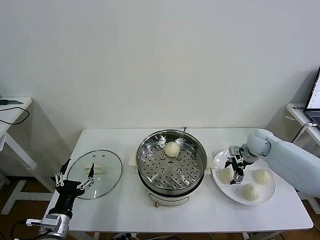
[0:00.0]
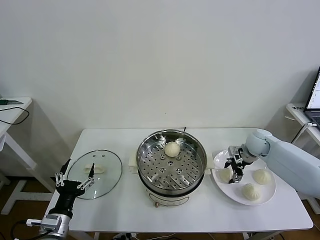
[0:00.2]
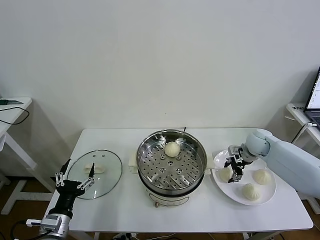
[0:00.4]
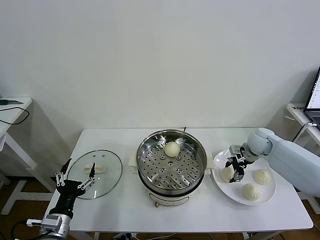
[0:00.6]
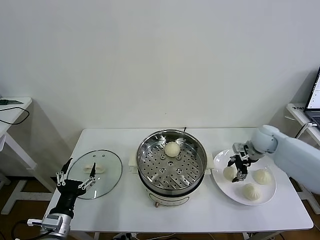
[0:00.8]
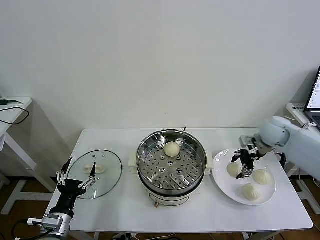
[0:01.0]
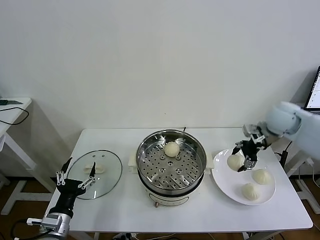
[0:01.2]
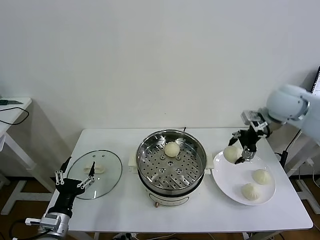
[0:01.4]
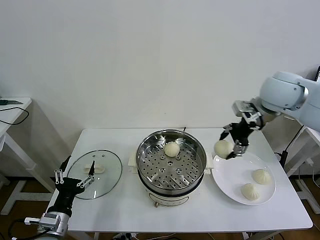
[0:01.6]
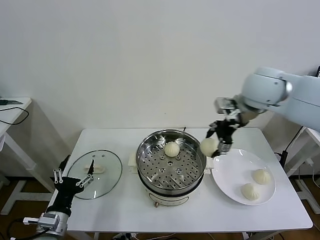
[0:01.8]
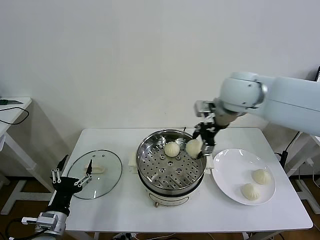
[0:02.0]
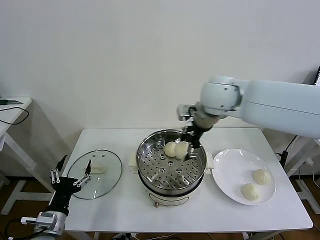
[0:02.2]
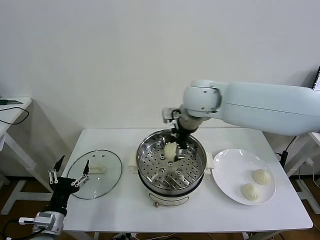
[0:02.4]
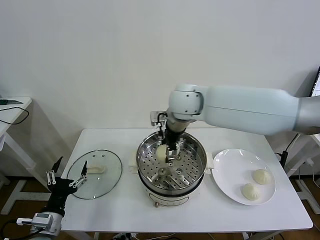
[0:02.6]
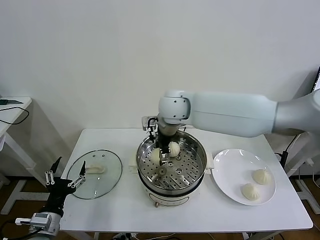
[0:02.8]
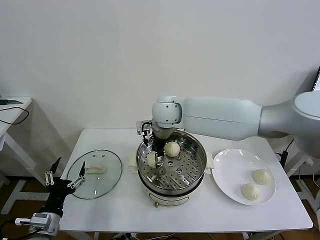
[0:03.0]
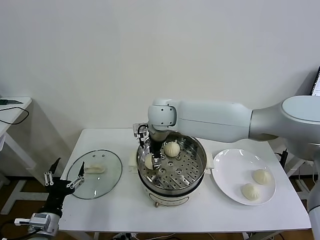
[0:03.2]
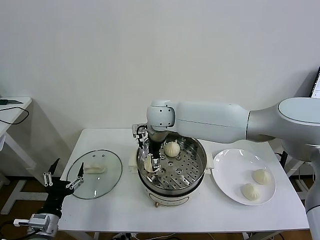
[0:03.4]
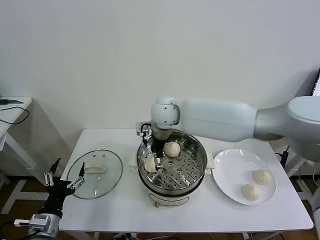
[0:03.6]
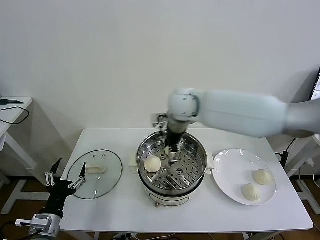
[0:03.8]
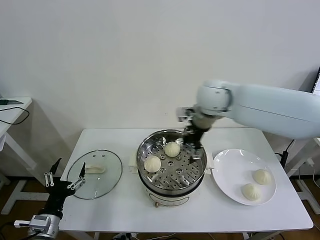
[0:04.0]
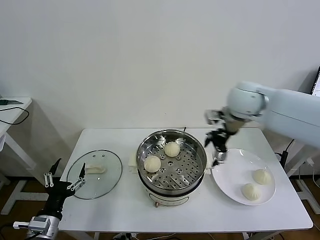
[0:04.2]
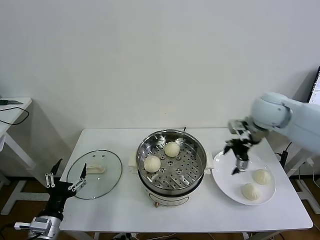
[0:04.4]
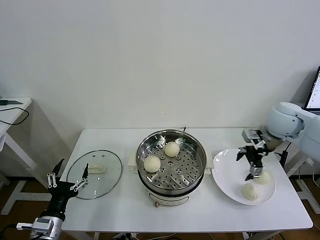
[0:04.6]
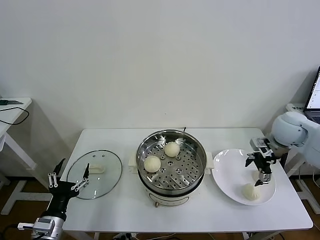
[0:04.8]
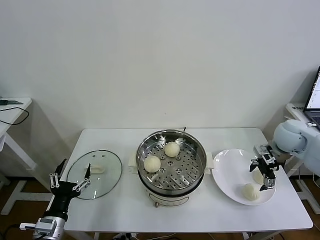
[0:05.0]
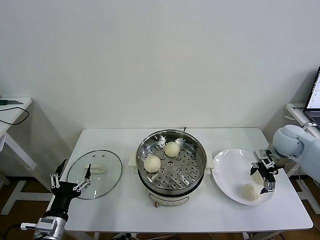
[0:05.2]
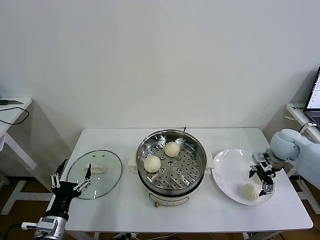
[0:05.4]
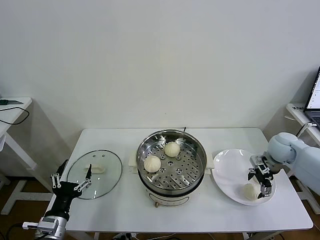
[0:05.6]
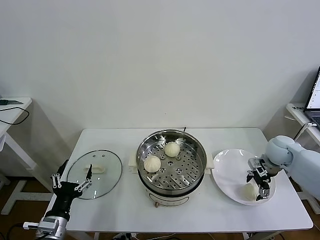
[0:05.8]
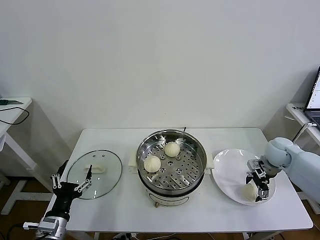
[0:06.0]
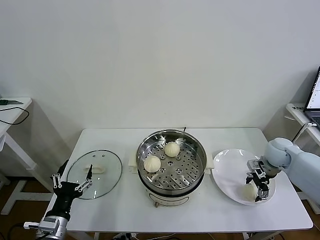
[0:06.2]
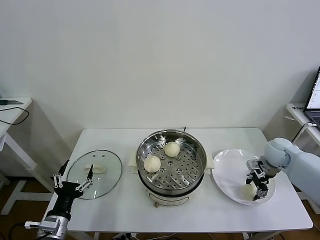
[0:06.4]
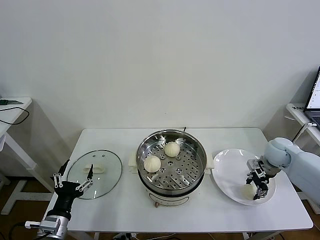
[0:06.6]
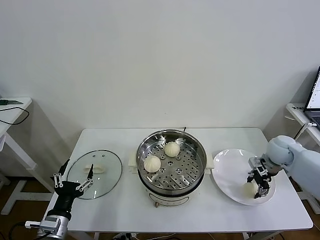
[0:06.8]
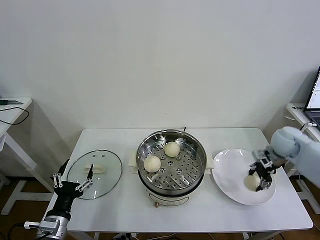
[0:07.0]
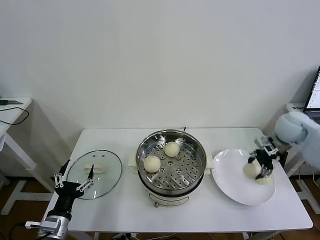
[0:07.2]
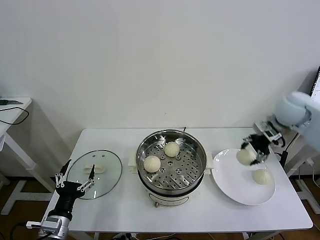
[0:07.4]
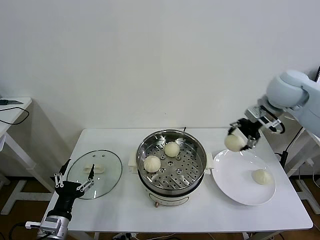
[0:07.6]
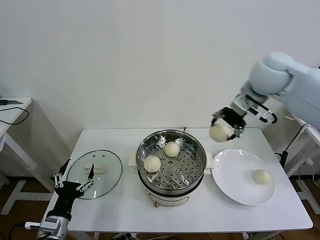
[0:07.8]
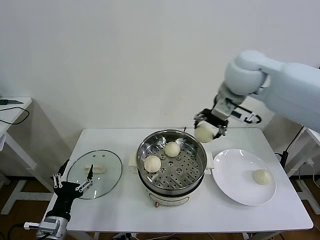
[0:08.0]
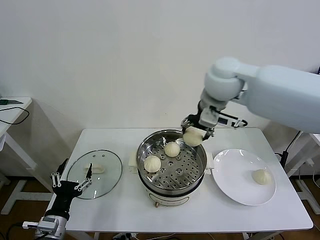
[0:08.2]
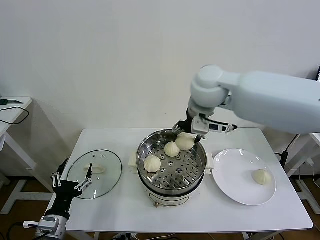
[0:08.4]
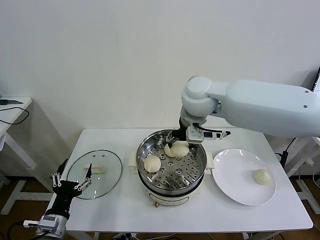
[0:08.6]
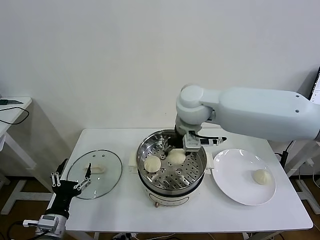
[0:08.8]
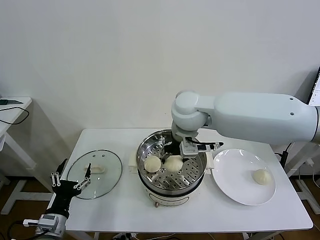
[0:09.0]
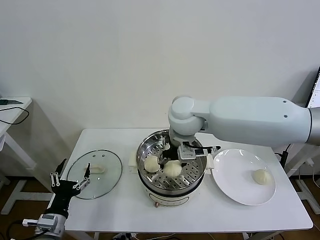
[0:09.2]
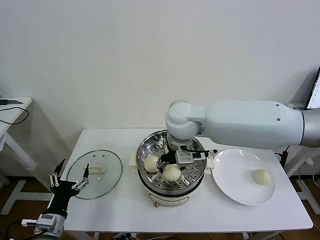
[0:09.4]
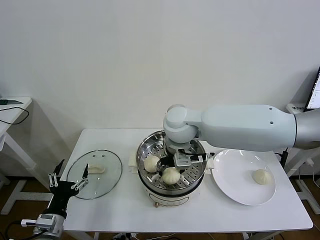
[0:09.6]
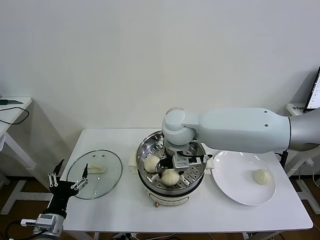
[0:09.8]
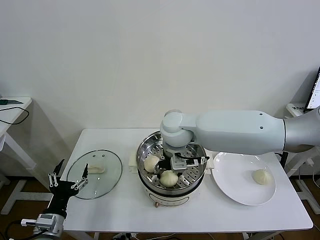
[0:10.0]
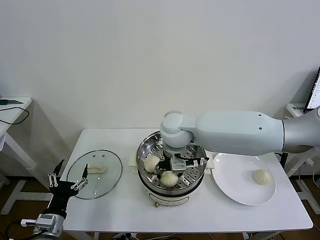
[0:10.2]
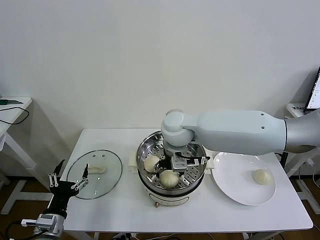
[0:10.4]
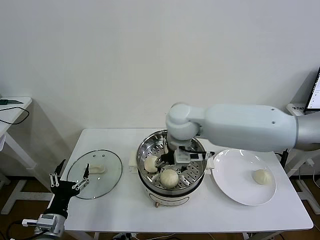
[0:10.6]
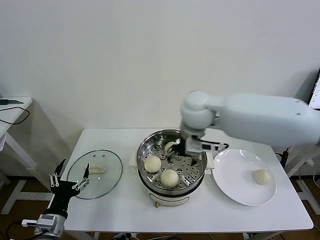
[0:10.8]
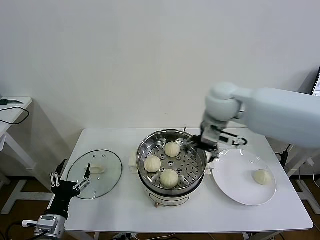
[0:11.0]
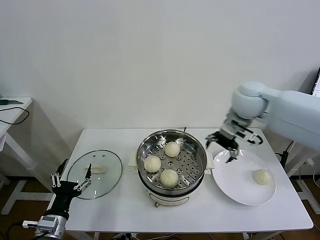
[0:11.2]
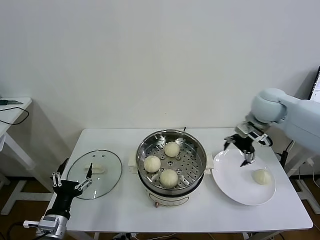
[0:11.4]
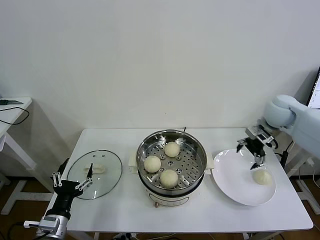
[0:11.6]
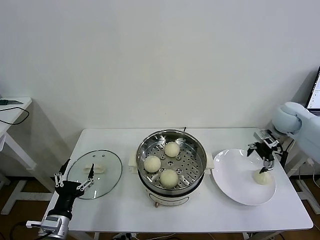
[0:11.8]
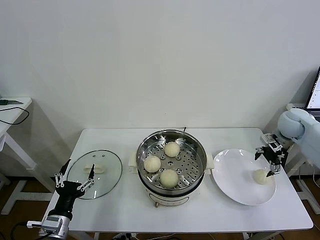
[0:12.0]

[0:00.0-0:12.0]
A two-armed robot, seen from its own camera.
Task of the whole recording: take steamed baozi put them in steamer then cover it.
Step, 0.4 to 3.4 s: Place the baozi on the steamer with right gripper.
Step, 3.6 to 6.4 s: Grasp the baozi in the plate with right gripper.
Step, 6.6 to 10.2 s: Place the baozi on the steamer with right gripper.
0.0 to 1.6 s: The right gripper shifts some 25 cm upward, and closes its fingers.
1.6 to 3.0 s: The right gripper heads to the left and downward, covering roughly 30 cm.
3.0 to 4.4 s: The right gripper travels to the right by some 30 cm, and opens up.
4.4 to 6.0 s: The right gripper is displaced downward and to the right by approximately 20 cm.
6.0 to 7.6 s: The right gripper goes some 30 cm upward and to the left, and closes.
7.6 to 9.0 s: The right gripper goes approximately 25 cm to the left.
9.0 to 10.4 s: The right gripper is displaced downward by roughly 5 cm, and opens its fingers.
10.4 to 12.0 s: The right gripper is displaced to the right by approximately 40 cm.

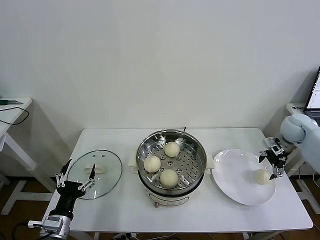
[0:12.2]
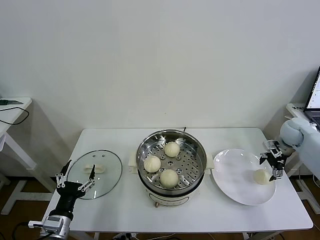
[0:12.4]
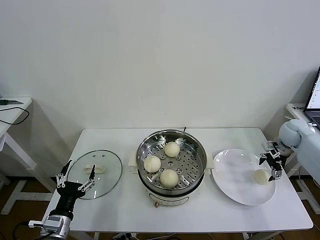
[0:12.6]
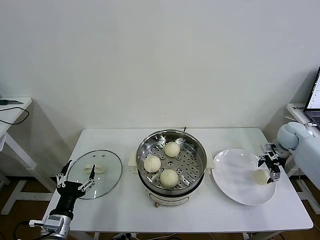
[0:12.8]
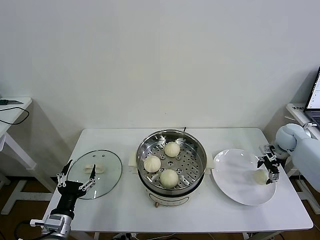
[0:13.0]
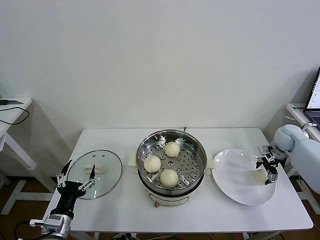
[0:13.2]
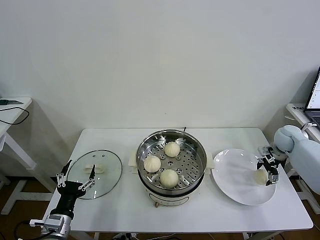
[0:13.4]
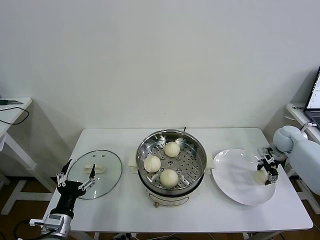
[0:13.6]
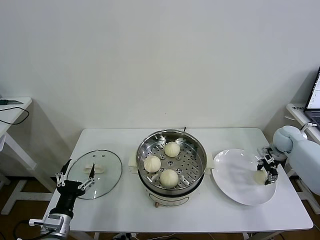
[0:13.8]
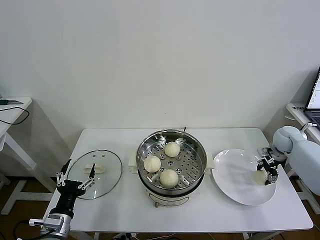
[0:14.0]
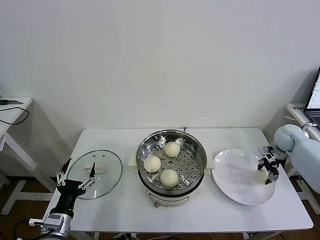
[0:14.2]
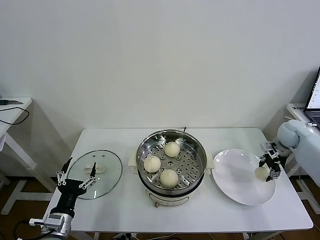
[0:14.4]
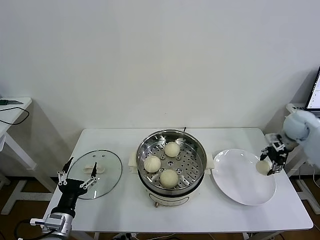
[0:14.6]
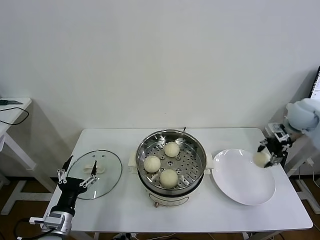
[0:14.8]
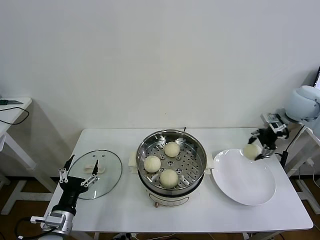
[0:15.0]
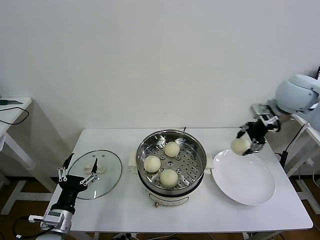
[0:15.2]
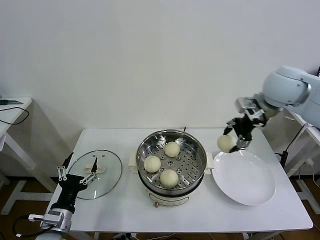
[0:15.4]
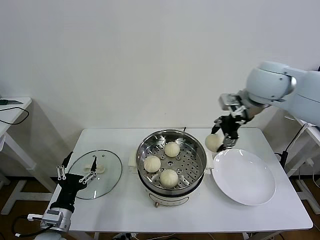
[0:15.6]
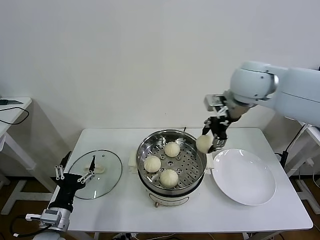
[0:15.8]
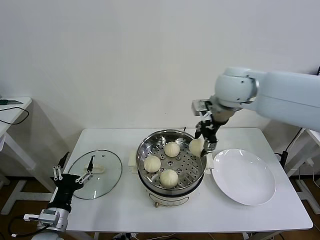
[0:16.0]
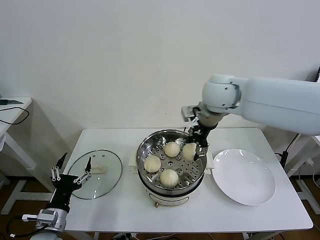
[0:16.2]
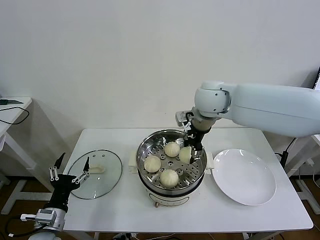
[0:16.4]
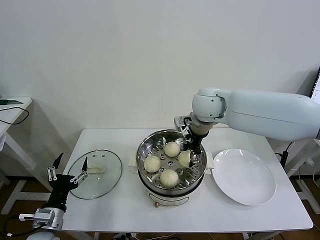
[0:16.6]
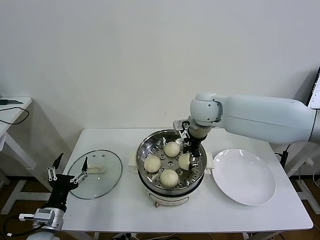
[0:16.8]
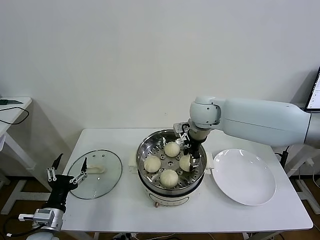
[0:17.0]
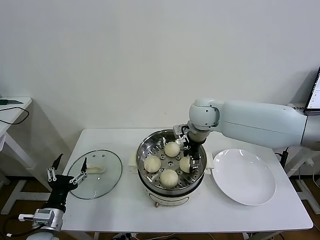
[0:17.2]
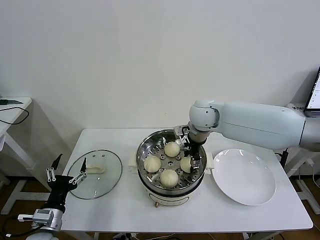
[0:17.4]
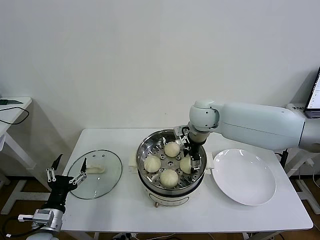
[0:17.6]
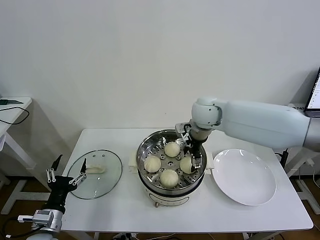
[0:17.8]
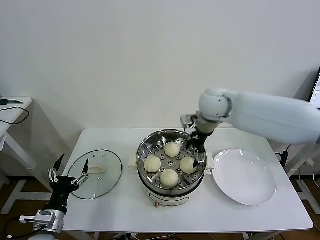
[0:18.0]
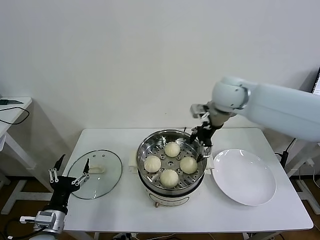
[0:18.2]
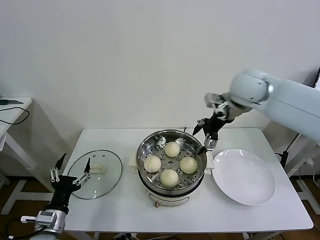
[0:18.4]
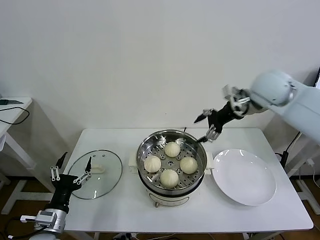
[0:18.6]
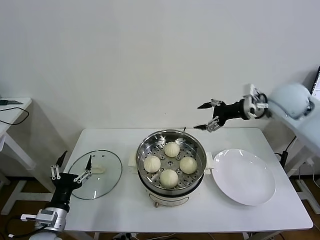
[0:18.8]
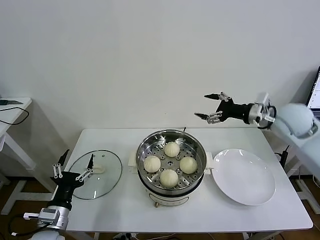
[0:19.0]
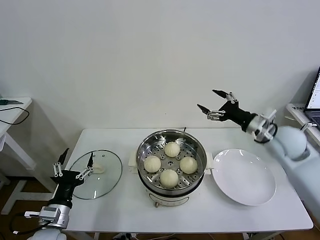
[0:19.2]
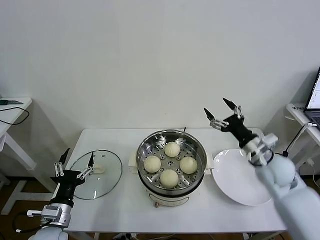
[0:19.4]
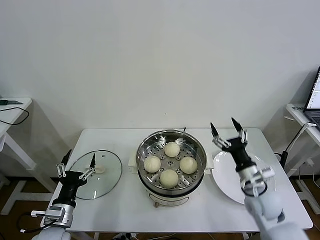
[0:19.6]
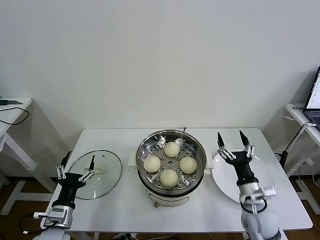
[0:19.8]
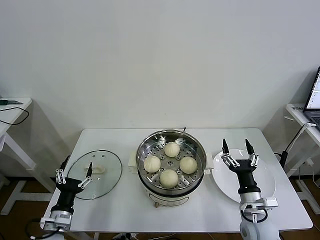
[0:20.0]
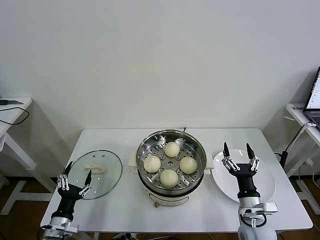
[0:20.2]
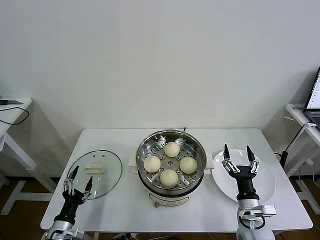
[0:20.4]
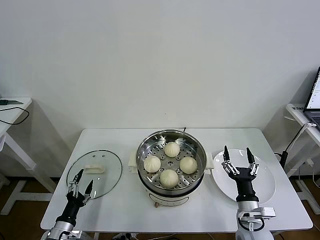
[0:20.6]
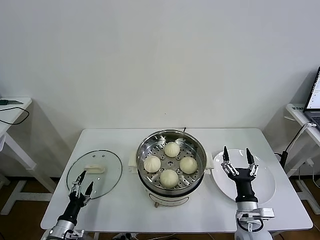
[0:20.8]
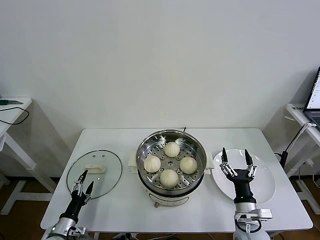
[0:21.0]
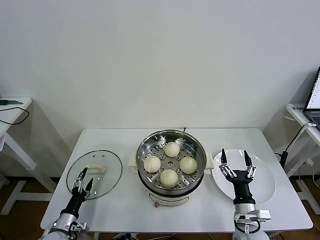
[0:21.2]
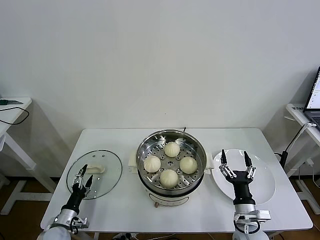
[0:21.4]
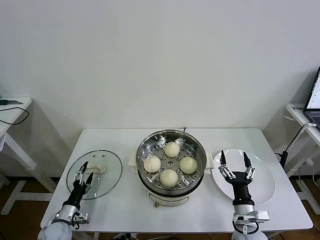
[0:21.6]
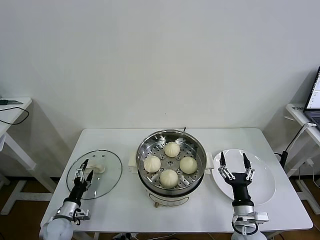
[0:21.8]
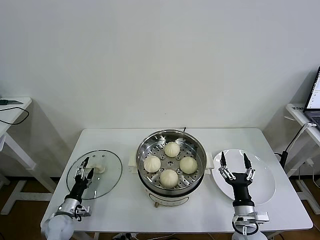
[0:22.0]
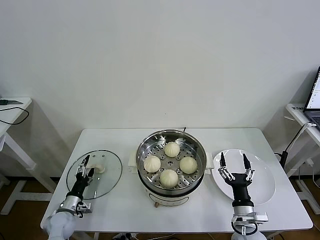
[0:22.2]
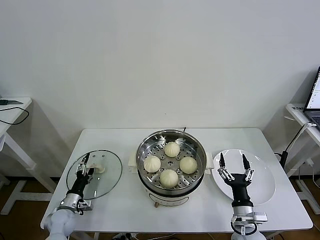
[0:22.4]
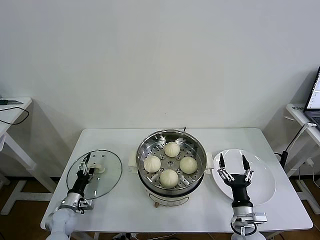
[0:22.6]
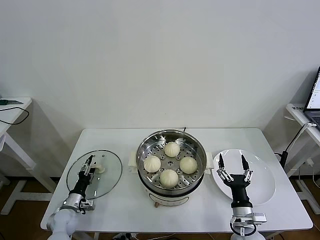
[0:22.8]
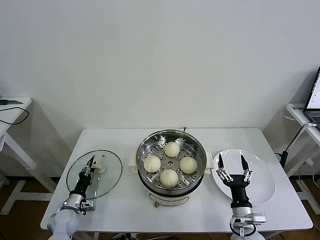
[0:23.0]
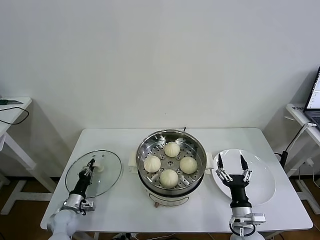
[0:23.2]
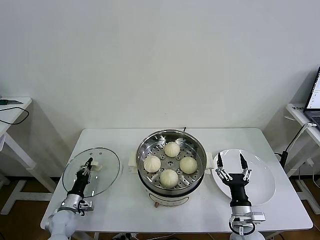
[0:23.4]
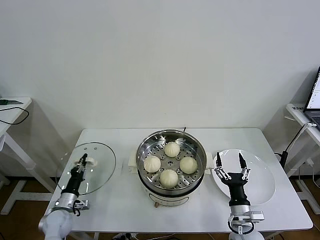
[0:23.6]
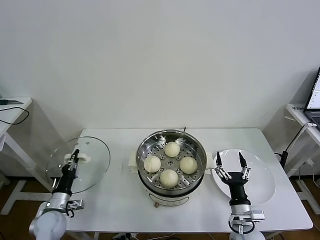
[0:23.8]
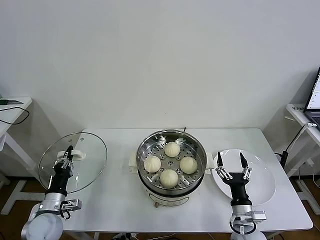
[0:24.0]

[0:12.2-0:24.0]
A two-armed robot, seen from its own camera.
Task of the whole recording: take steamed baozi put them in steamer then cover it.
Step, 12.2 to 14.0 s: Grasp the baozi in the plate with right gripper.
Step, 14.2 to 17.6 s: Place the baozi on the steamer with right gripper.
Step, 18.0 to 23.4 s: Grasp the pot lid with left gripper.
12.2 to 13.6 s: The right gripper heads downward, covering approximately 5 cm, and closes up.
13.6 to 15.2 s: The right gripper moves upward and to the left, some 30 cm, and closes up.
15.2 to 16.6 s: The right gripper shifts about 20 cm to the left.
16.6 to 18.2 s: The right gripper travels to the right by approximately 5 cm, and opens.
18.2 to 19.6 s: The right gripper is displaced downward, backward and to the right by about 35 cm.
19.6 to 21.0 s: The left gripper shifts some 15 cm downward and to the left. The right gripper travels backward and downward by approximately 10 cm.
21.0 to 22.6 s: The left gripper moves forward, some 10 cm.
22.6 to 24.0 s: The left gripper heads upward, covering about 10 cm, and closes.
